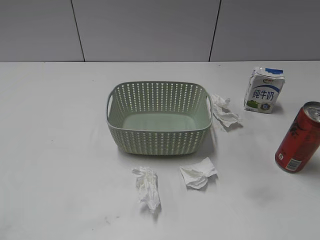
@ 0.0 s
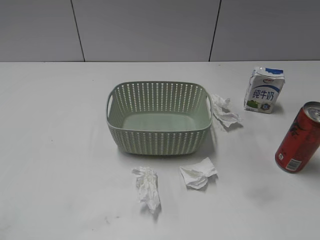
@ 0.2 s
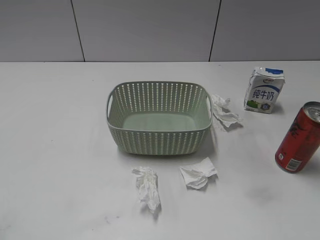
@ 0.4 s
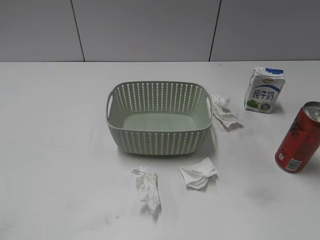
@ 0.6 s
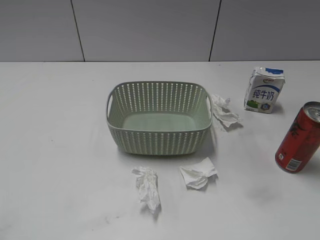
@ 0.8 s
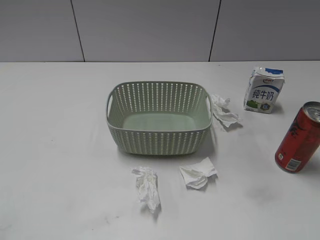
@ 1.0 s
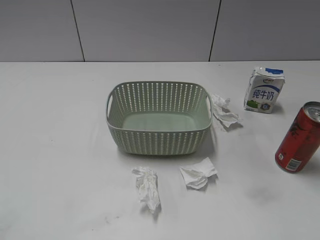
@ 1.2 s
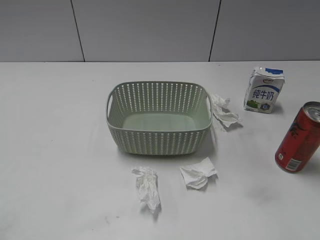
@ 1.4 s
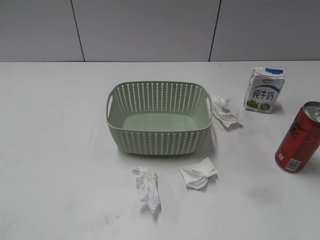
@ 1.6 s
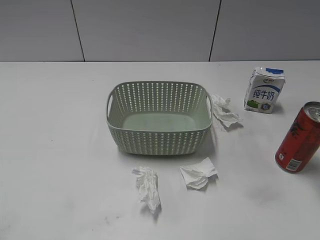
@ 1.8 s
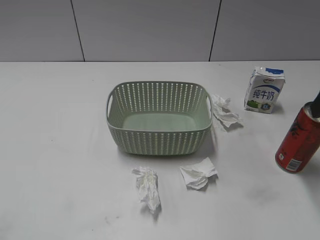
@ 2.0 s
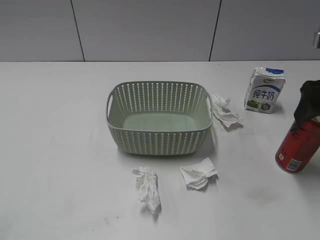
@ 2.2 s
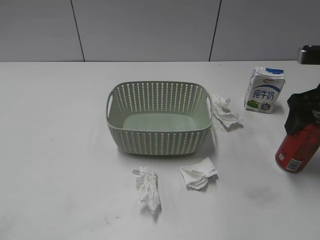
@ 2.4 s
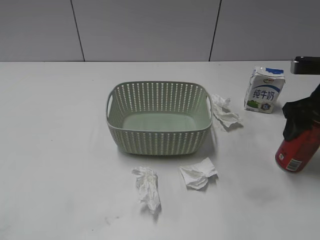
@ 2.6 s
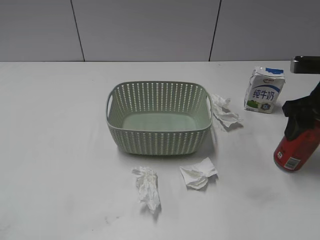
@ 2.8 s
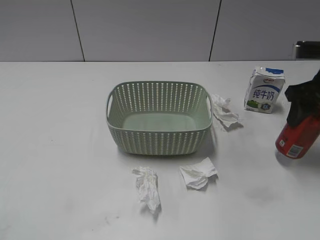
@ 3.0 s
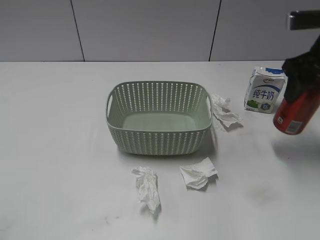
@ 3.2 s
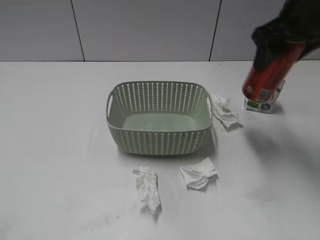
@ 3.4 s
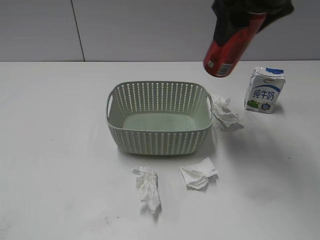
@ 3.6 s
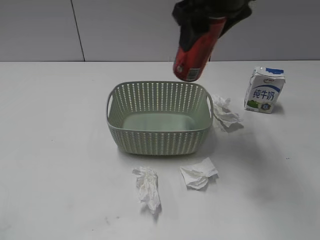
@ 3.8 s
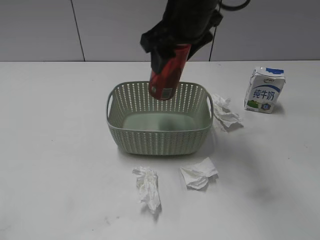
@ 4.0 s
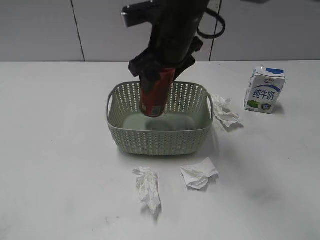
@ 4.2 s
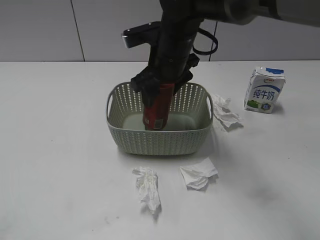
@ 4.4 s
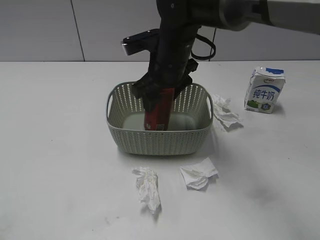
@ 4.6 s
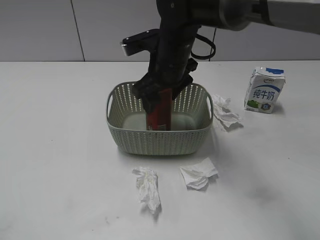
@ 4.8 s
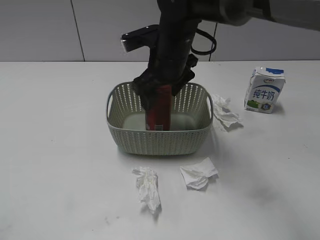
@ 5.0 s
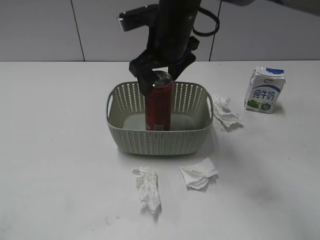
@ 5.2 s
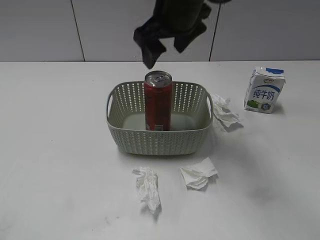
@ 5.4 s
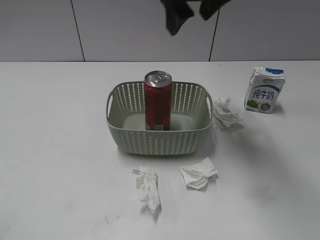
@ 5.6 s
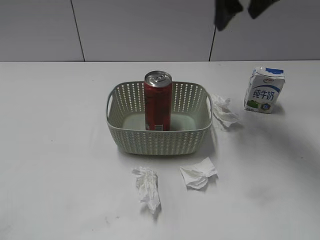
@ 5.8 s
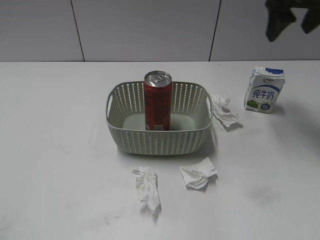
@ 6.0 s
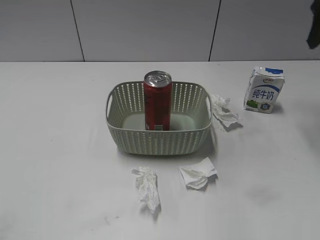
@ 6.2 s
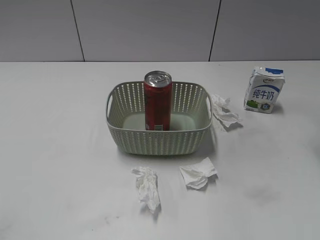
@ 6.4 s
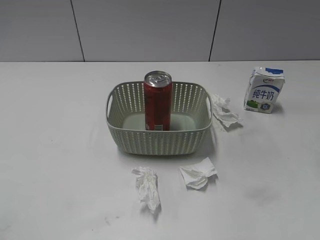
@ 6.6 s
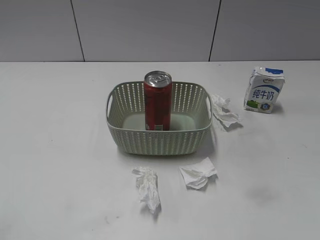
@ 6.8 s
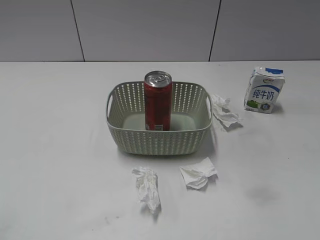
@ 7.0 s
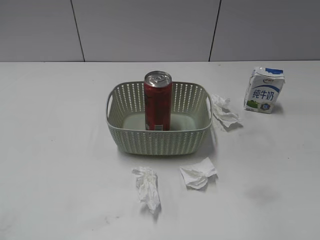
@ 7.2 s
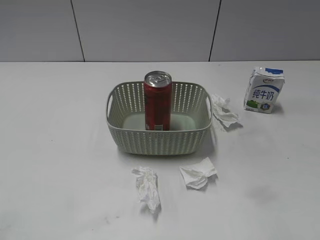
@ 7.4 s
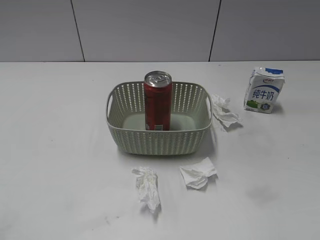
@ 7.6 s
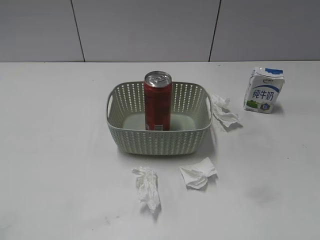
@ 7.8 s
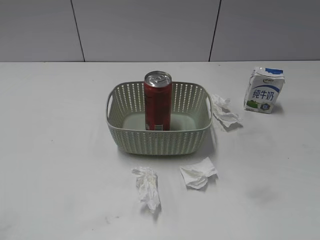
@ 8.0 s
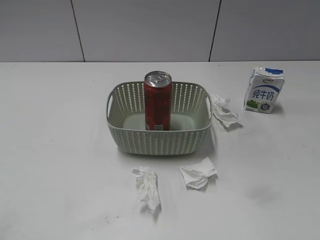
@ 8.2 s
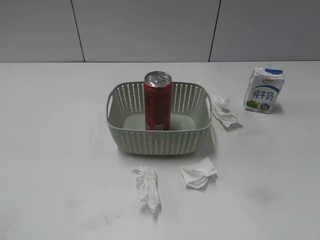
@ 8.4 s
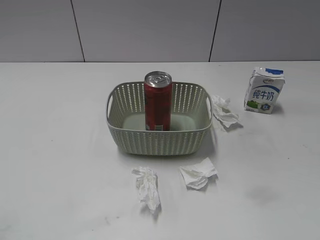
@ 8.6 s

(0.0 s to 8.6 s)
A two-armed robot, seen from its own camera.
Step, 2.0 s - 2.6 s: Grasp the cola can with right gripper.
Step, 2.8 s - 5.4 s: Place the cola can in the basket with right gripper.
1.4 s - 2.8 s: The right gripper travels forward and downward by approximately 25 cm, and closes up.
2.8 s - 4.4 s: The right gripper travels to the left by roughly 25 cm.
4.4 s - 5.8 s: The right gripper goes about 20 cm upward and to the right, and opens.
5.8 s - 7.2 s: The right gripper shifts roughly 30 cm backward and to the right, and closes its fingers.
